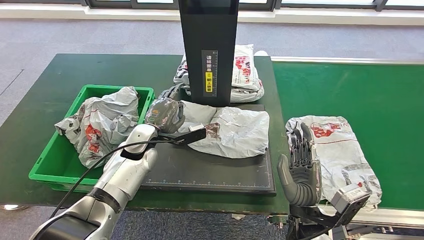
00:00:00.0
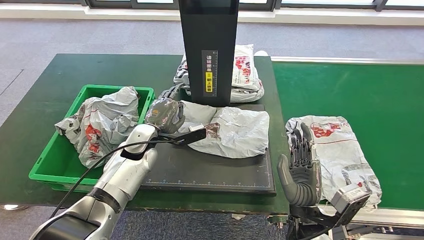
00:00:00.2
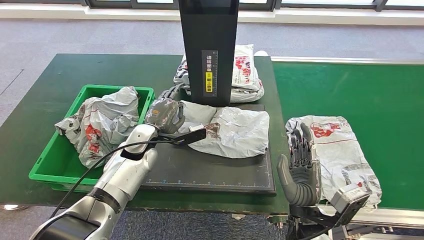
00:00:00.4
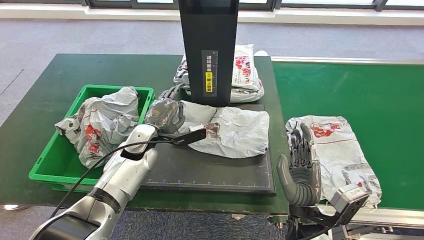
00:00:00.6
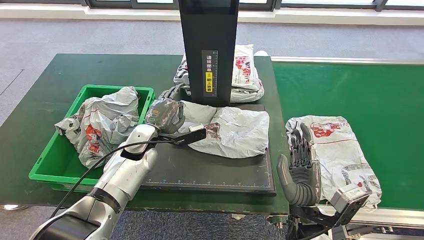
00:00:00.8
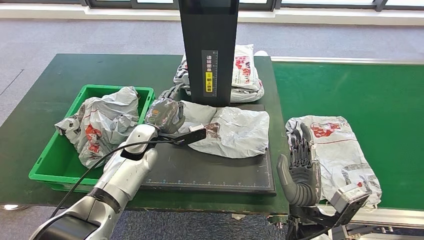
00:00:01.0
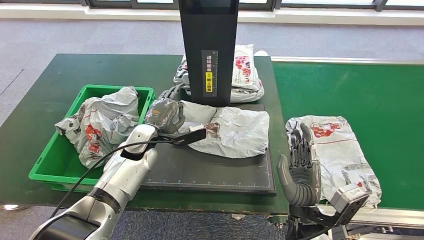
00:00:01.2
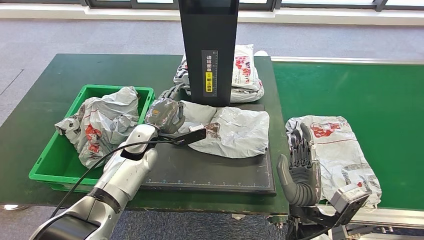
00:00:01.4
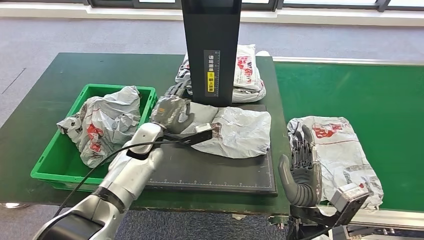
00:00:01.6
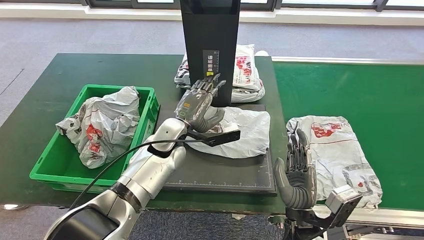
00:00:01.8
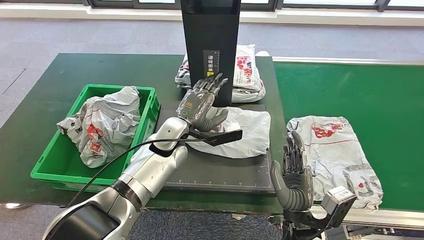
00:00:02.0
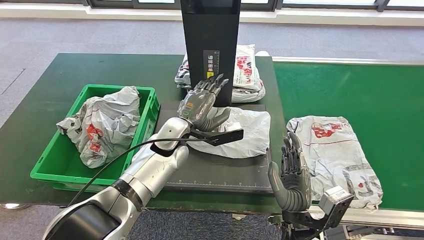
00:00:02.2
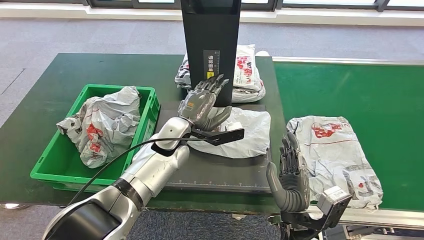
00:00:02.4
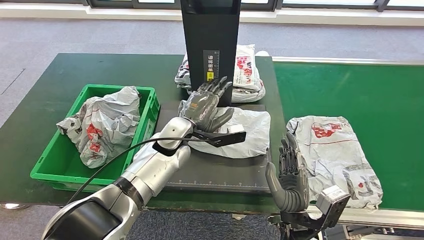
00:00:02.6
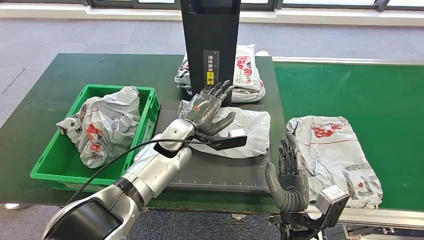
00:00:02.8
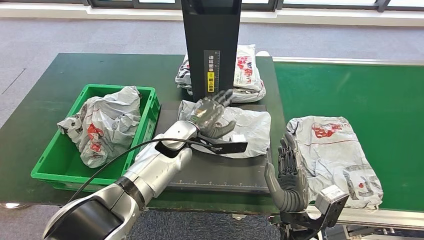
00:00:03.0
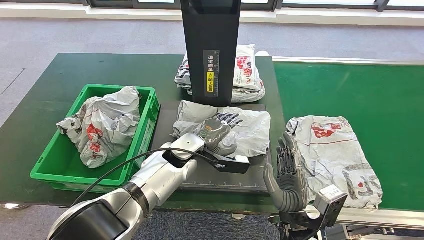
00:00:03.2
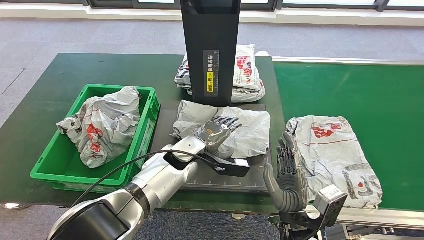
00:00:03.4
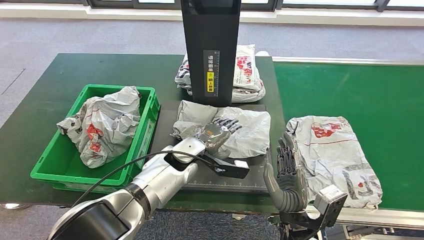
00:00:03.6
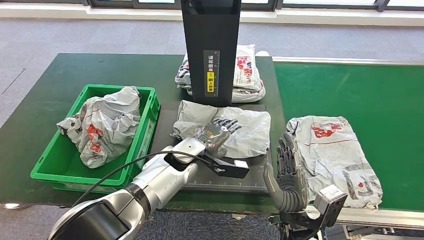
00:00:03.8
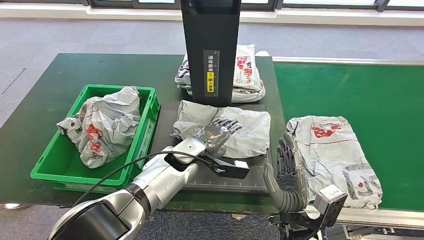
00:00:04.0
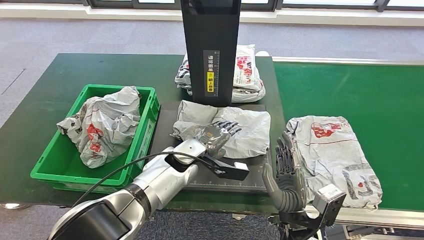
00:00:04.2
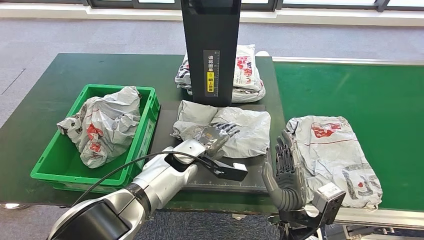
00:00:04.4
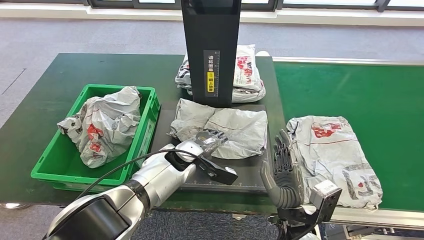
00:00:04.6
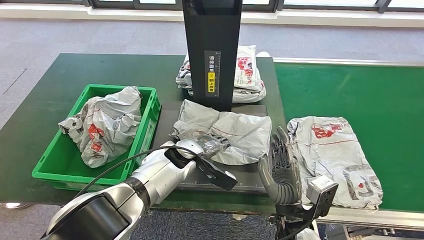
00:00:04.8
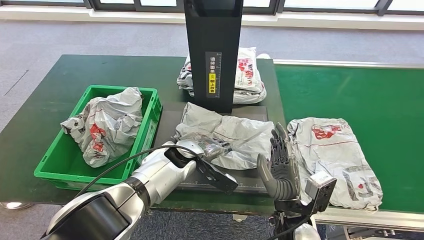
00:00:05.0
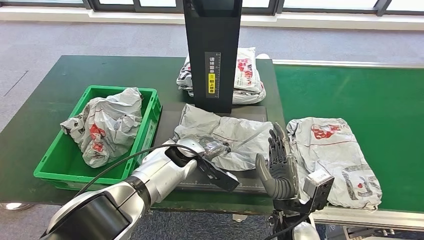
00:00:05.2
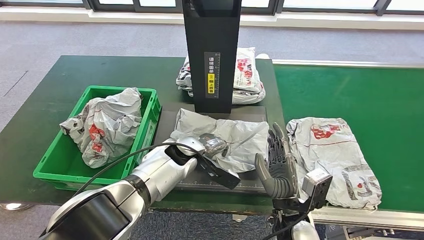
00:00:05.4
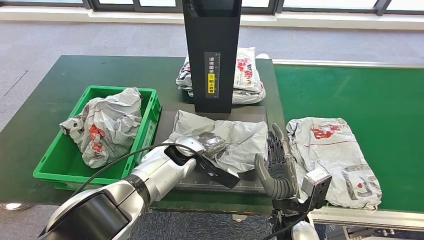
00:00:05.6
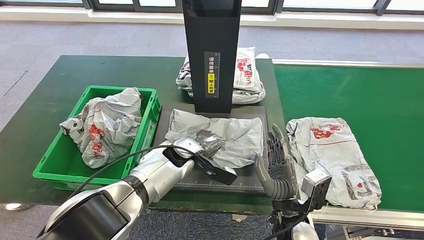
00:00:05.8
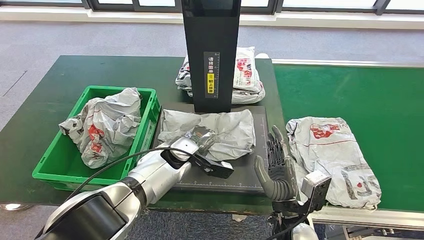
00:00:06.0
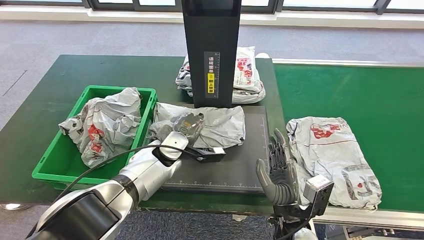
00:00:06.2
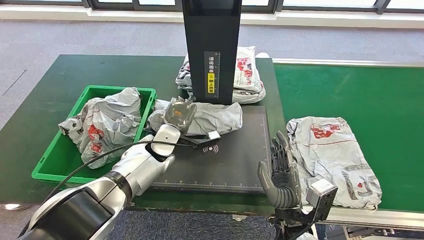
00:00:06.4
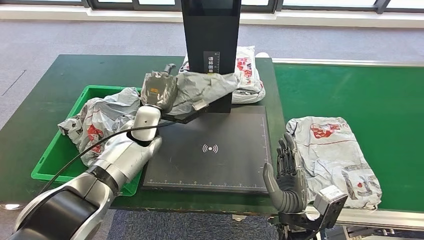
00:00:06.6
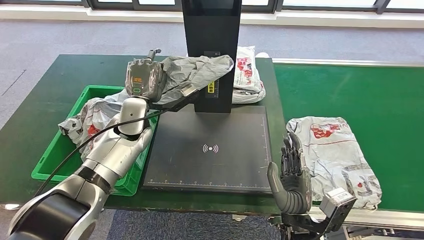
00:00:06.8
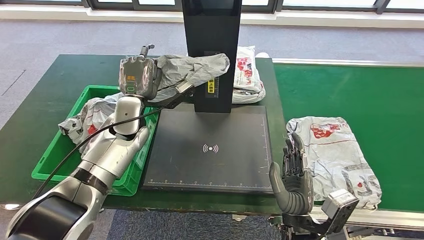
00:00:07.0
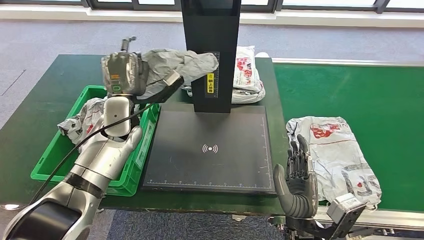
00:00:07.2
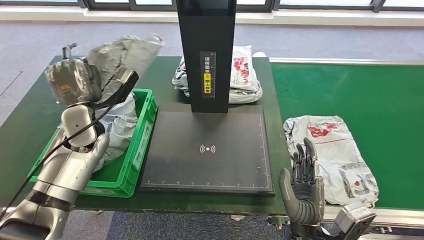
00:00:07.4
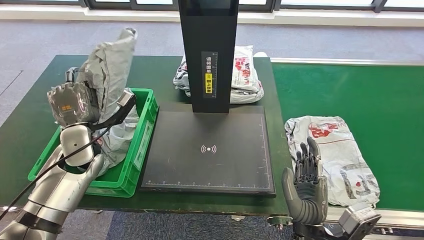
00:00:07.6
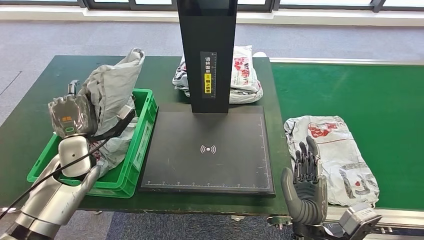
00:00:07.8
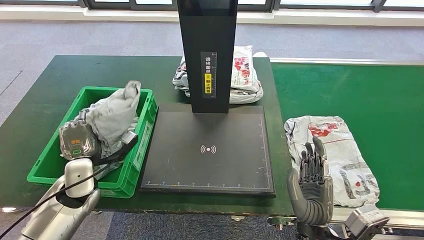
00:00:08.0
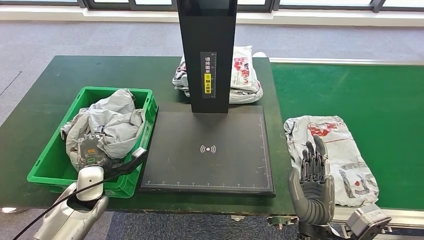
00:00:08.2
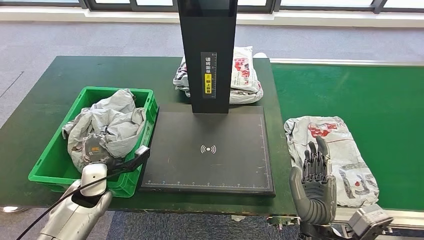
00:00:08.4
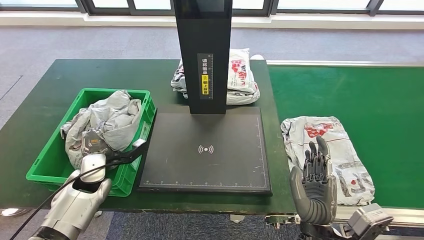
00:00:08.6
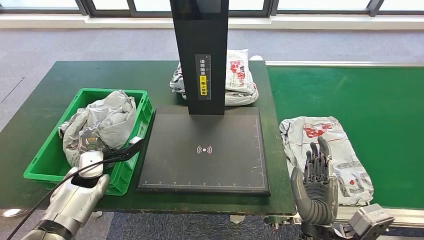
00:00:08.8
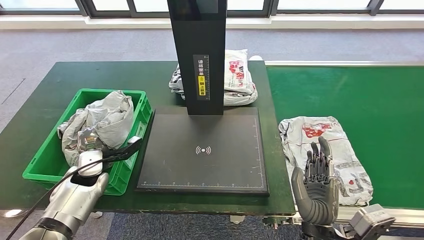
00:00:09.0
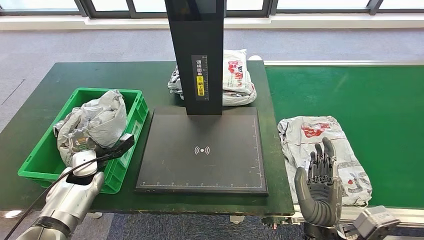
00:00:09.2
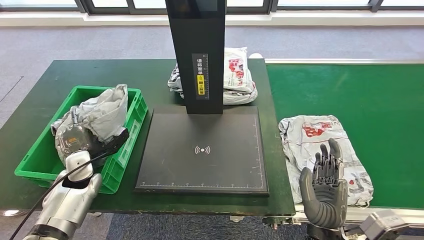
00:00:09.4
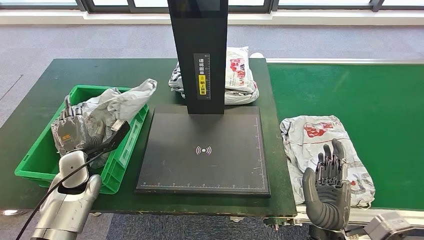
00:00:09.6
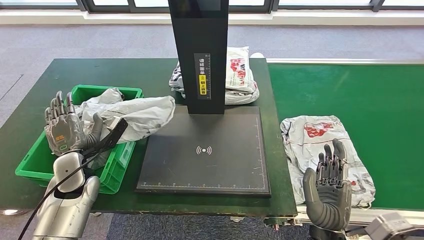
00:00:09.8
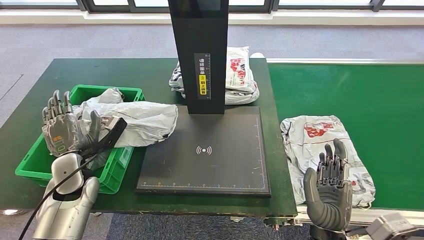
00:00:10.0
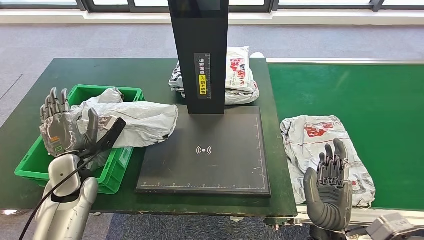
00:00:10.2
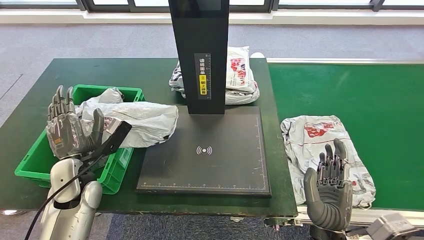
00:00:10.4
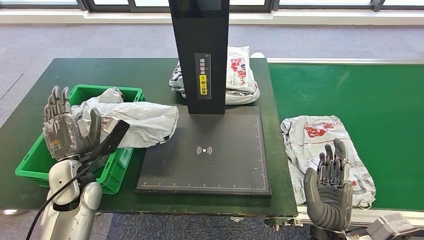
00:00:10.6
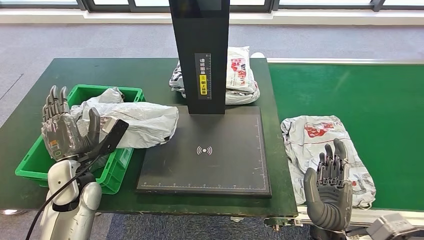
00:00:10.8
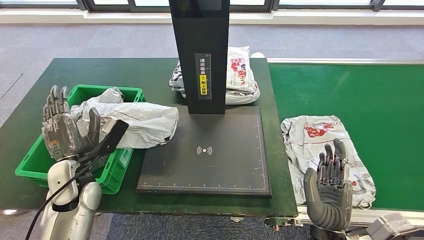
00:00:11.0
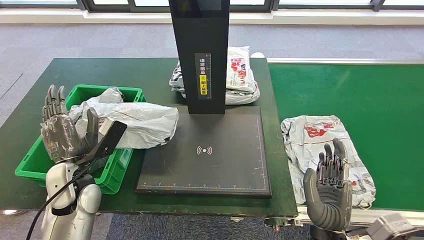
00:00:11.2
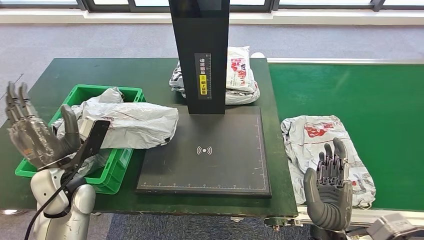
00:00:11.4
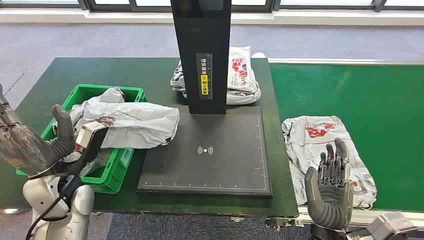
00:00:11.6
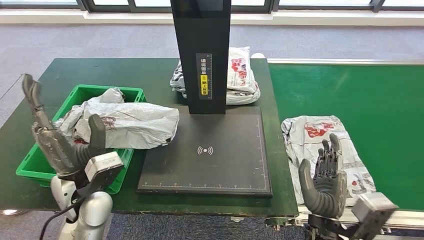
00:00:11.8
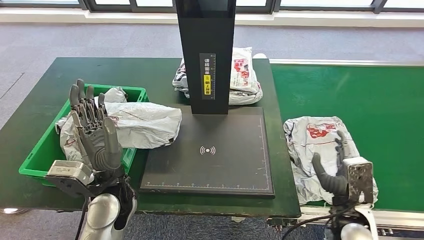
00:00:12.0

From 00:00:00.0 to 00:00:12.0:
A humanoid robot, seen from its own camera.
Step, from 00:00:00.0 to 00:00:07.0: Pick up the parcel from the inbound machine.
Step, from 00:00:07.2 to 00:00:11.2: Place the parcel into the delivery box.
From 00:00:00.0 to 00:00:01.6: The hands stay close to where they were, moving slightly.
From 00:00:01.6 to 00:00:03.0: The left hand heads to the right, covering approximately 10 cm.
From 00:00:03.0 to 00:00:04.4: There are only small adjustments of the hands.

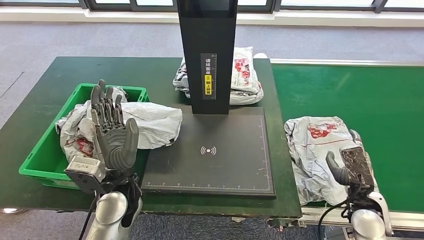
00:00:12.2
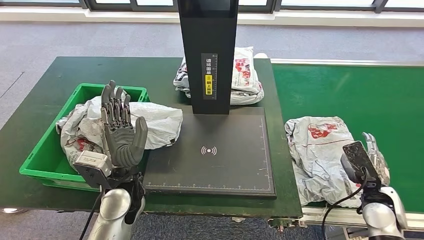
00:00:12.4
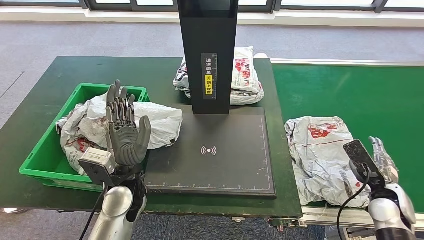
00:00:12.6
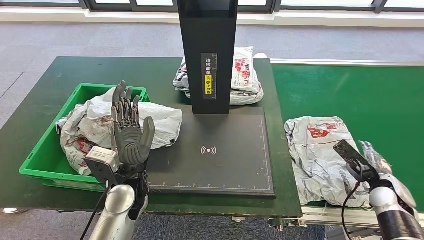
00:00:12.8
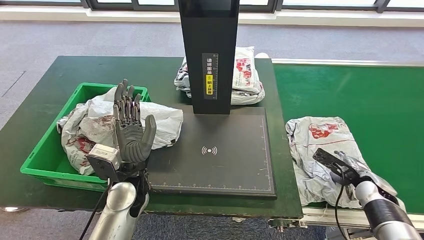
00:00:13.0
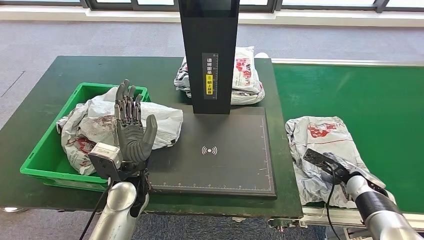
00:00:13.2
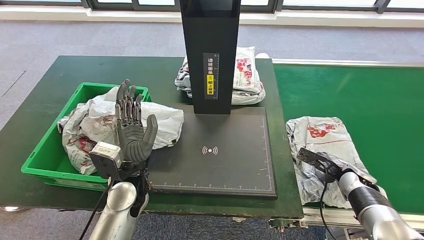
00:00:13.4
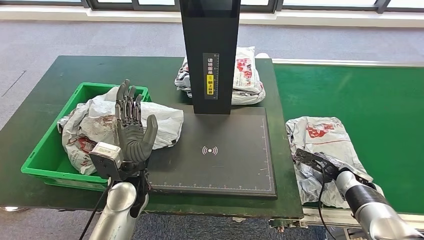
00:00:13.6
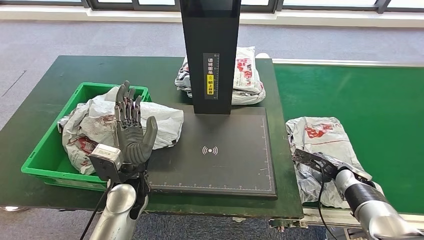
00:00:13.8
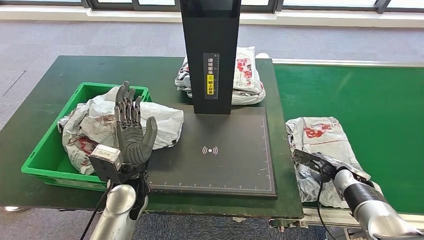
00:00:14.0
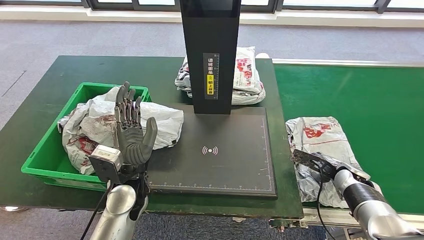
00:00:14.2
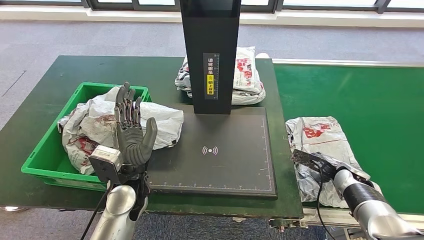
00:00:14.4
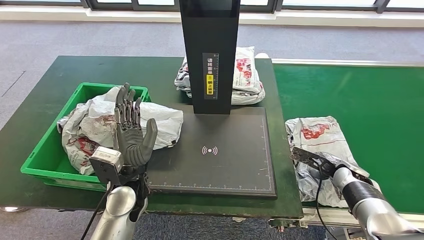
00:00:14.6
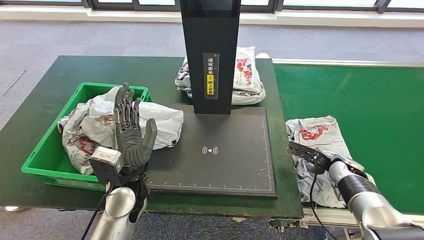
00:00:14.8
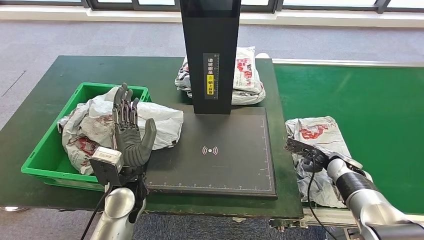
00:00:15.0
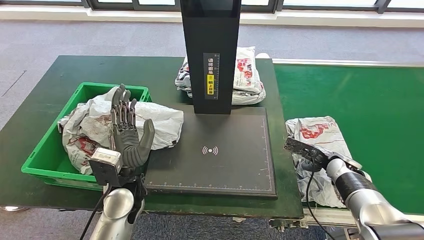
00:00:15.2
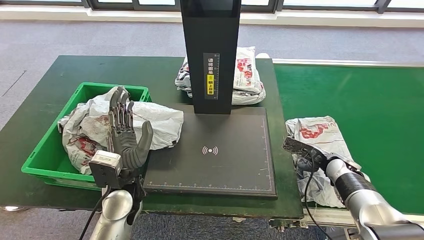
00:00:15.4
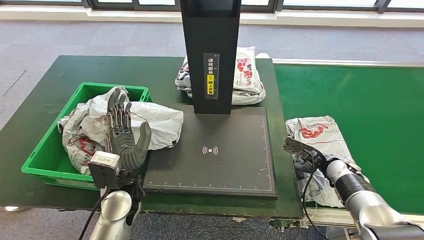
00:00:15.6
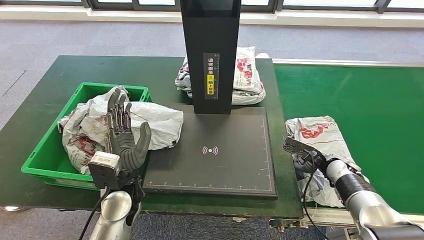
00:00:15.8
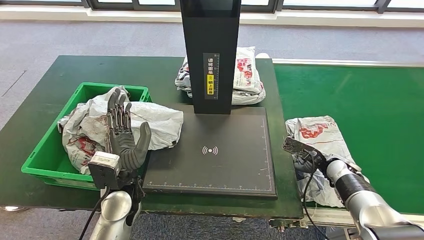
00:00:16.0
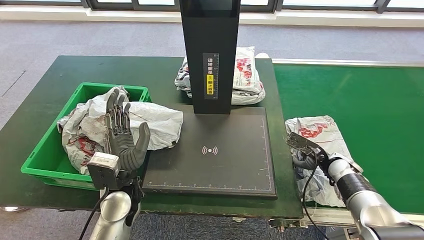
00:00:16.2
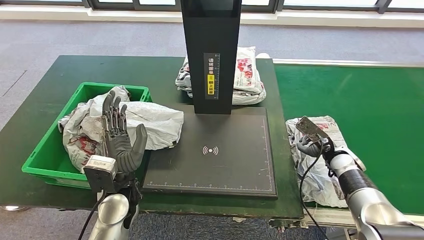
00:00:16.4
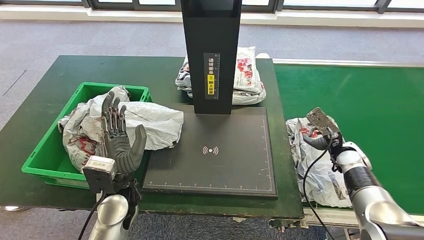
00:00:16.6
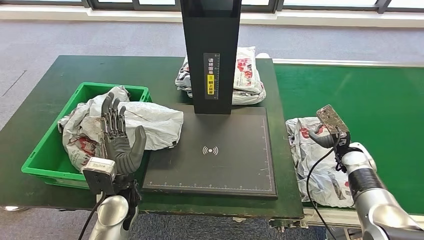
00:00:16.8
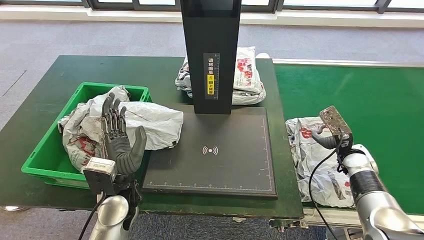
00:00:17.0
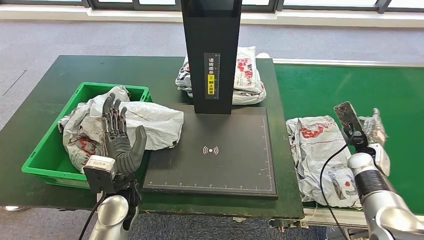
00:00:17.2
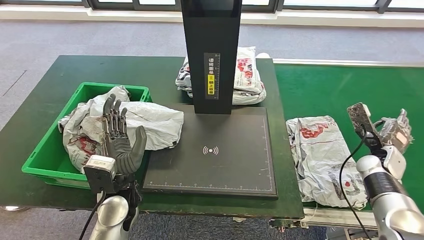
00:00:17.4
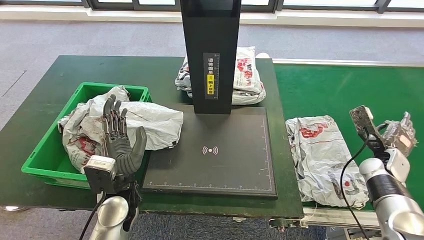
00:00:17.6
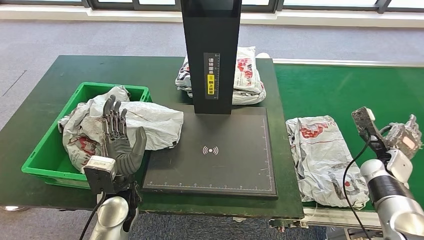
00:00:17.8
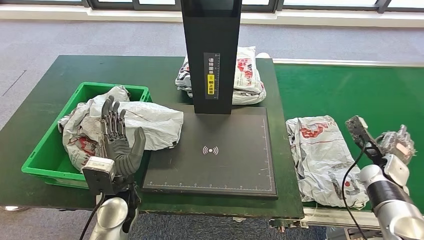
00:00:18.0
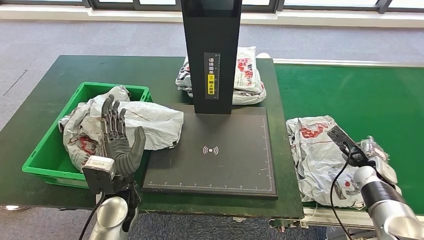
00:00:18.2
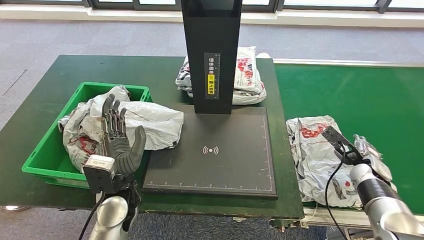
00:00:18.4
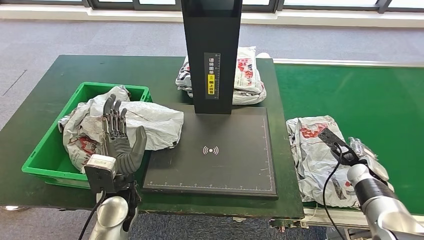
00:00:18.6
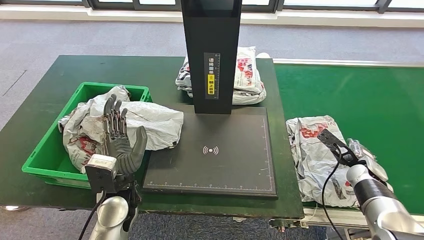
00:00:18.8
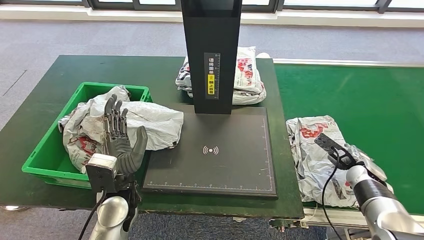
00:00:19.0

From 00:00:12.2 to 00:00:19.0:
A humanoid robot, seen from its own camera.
From 00:00:12.2 to 00:00:13.6: The right hand moves forward and downward, approximately 15 cm.
From 00:00:13.6 to 00:00:15.0: The hands stay close to where they were, moving slightly.
From 00:00:15.0 to 00:00:16.2: The hands move only a little.
From 00:00:16.2 to 00:00:17.6: The right hand moves to the right, approximately 10 cm.
From 00:00:17.6 to 00:00:19.0: The right hand ends up roughly 5 cm from where it was.
